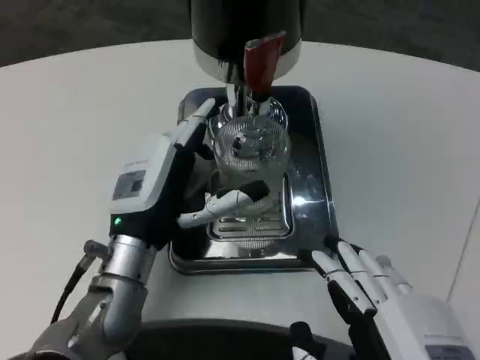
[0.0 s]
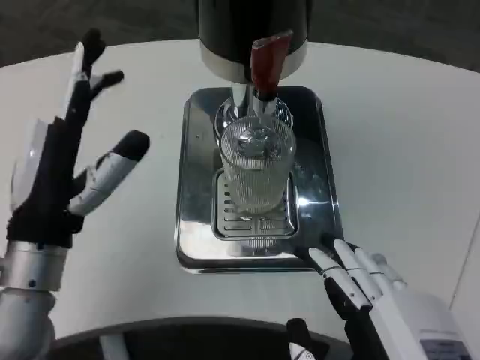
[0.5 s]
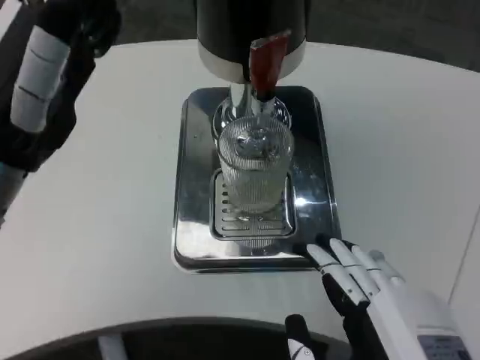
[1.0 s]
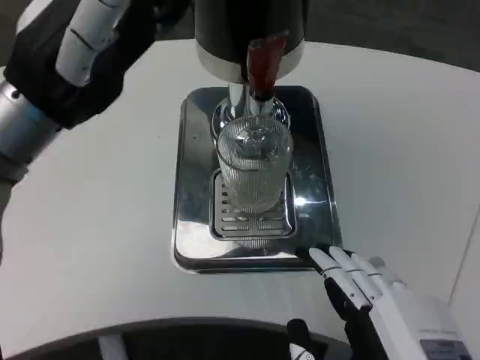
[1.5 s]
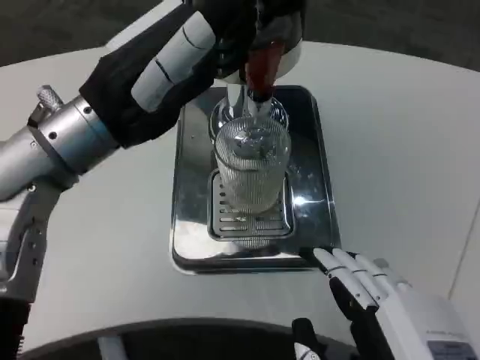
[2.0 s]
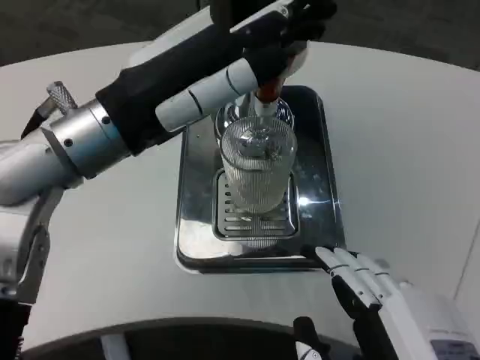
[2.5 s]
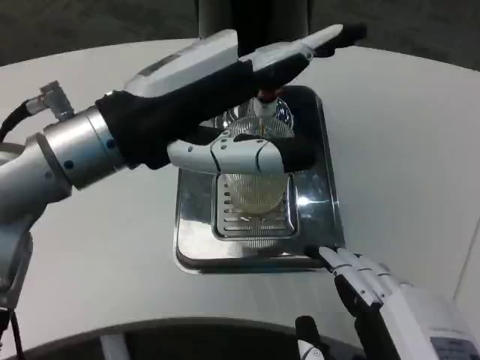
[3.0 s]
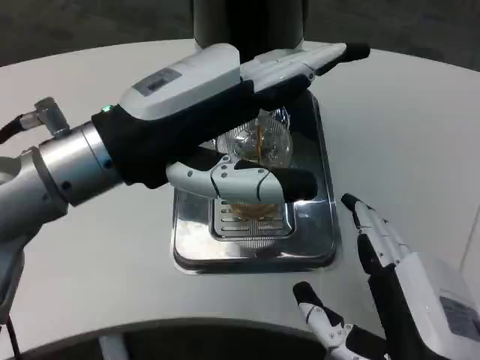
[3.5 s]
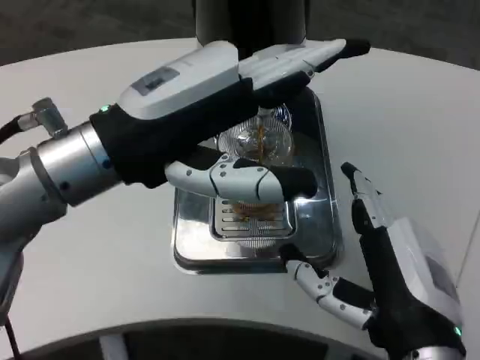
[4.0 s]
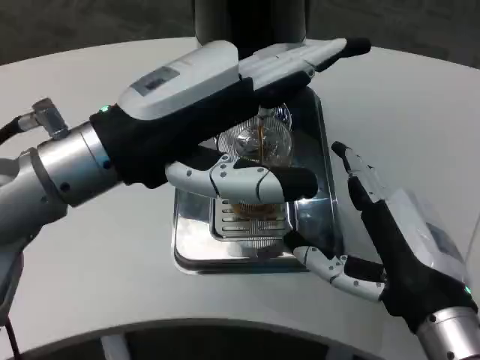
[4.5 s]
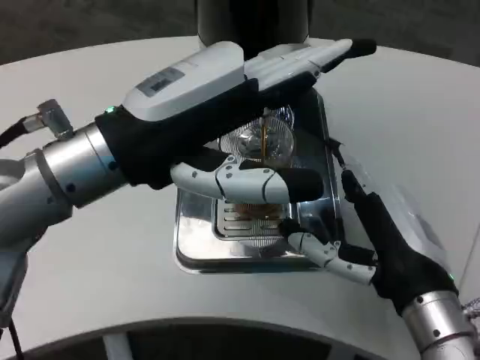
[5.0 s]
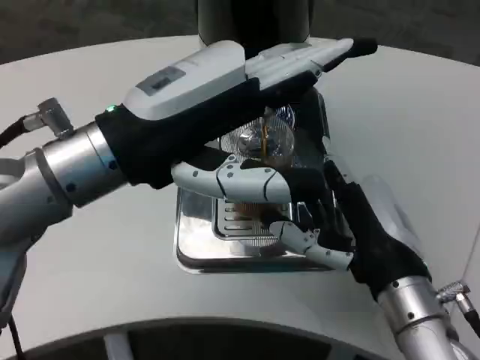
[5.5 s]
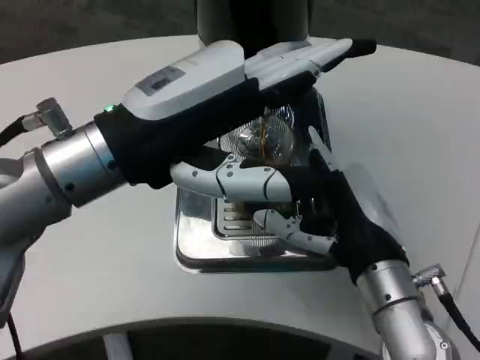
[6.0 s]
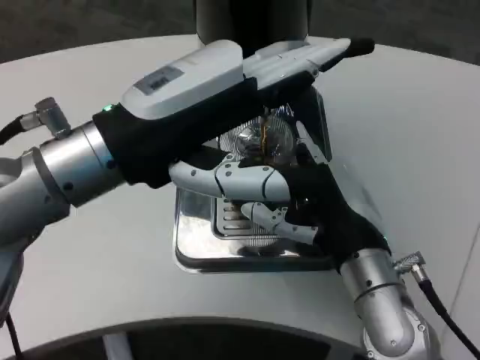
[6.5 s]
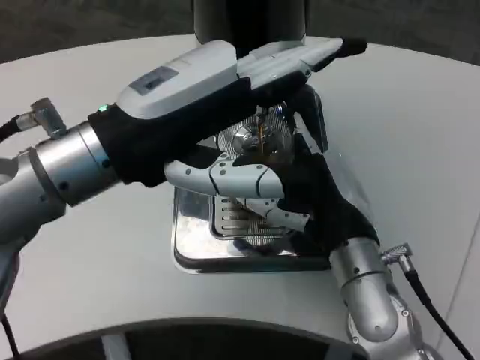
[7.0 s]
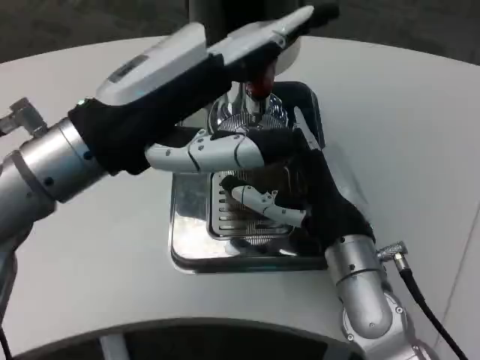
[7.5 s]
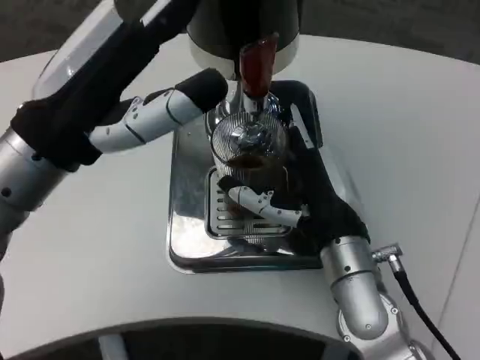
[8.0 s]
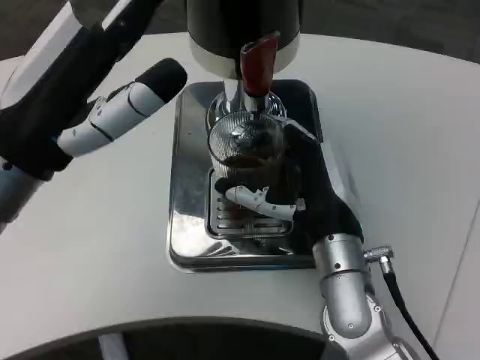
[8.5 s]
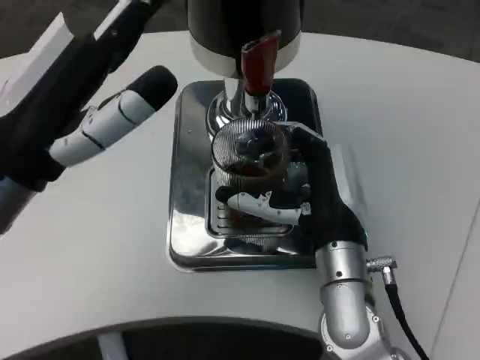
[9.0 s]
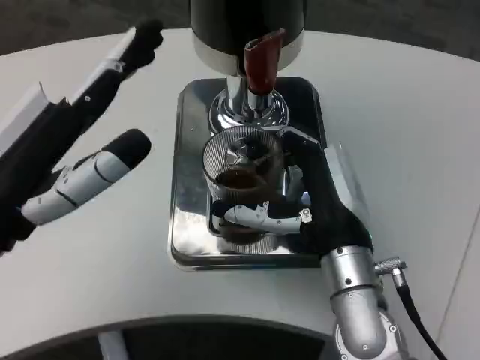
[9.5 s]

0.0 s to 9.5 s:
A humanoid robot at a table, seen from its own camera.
Task of the whole recording: Grasp the cup under the faucet to collect the drink, then remove the cup.
0.0 to 2.0 s: The left hand heads upward, covering roughly 15 cm.
2.0 to 4.0 s: The right hand goes roughly 10 cm forward.
4.0 to 5.5 s: The right hand shifts some 10 cm forward.
5.5 to 7.5 s: The right hand ends up approximately 5 cm from where it was.
7.5 to 9.5 s: The left hand moves to the left, downward and backward, approximately 10 cm.

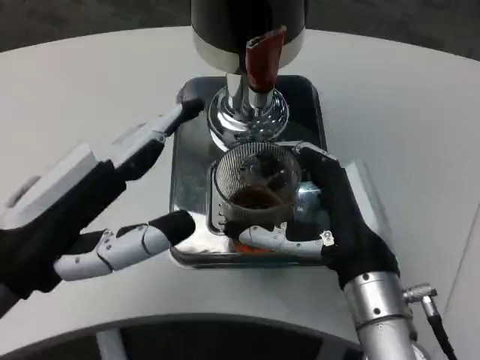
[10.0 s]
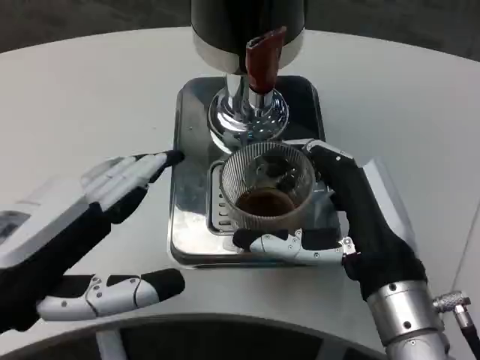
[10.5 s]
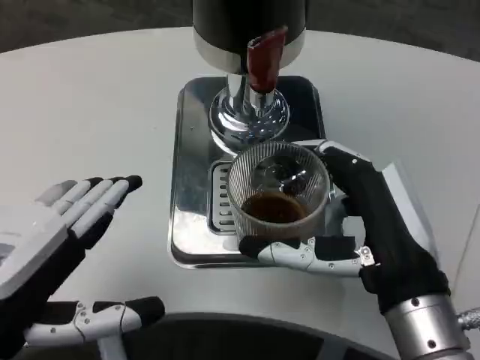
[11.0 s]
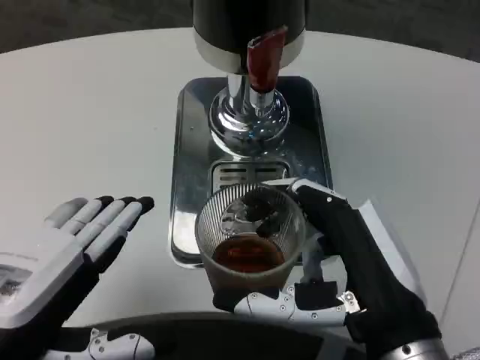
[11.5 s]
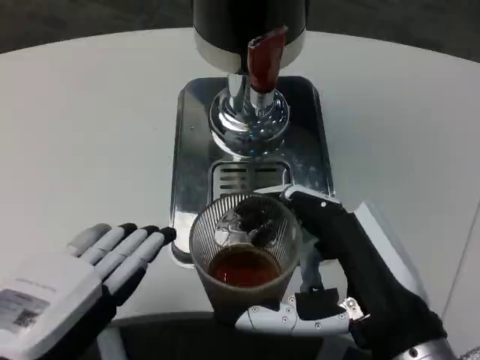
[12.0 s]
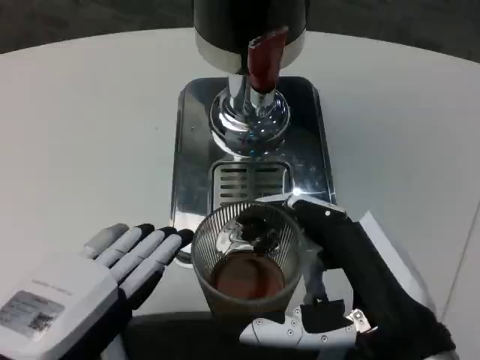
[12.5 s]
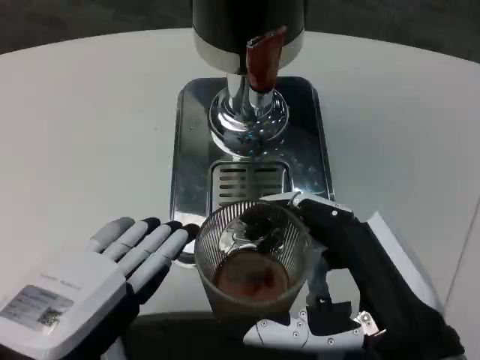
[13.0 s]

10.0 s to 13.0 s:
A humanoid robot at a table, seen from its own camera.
Task of the whole recording: Grasp the cup under the faucet to collect the drink, then remove the cup.
10.0 to 11.5 s: Both hands move backward, approximately 5 cm.

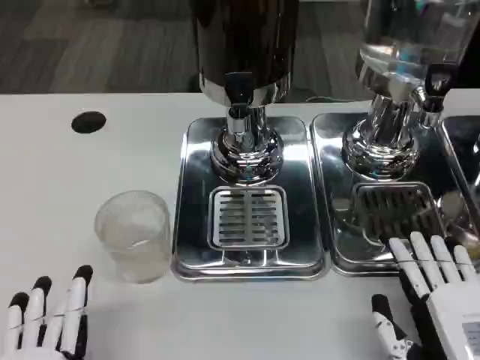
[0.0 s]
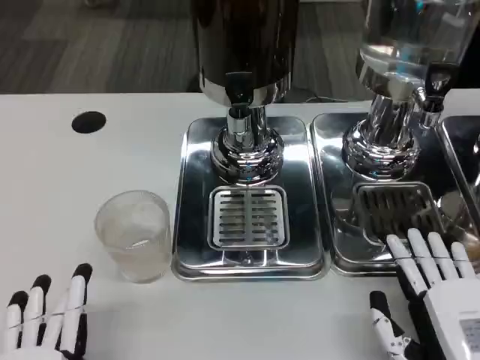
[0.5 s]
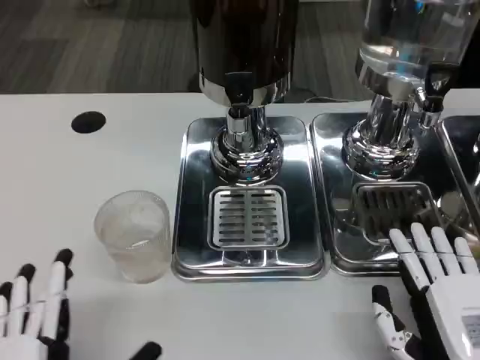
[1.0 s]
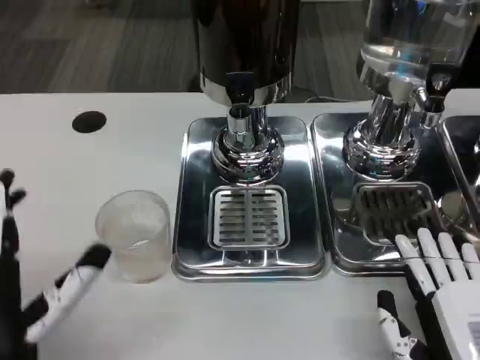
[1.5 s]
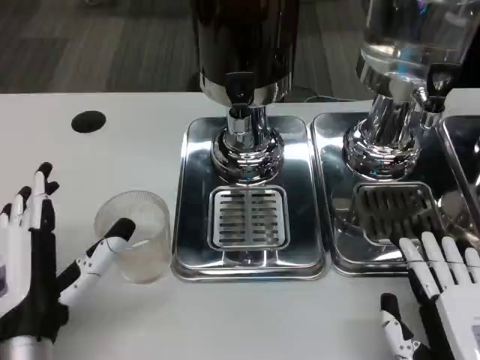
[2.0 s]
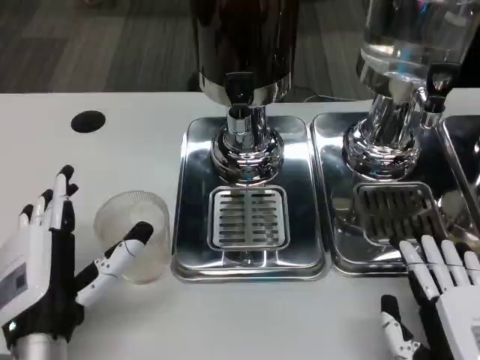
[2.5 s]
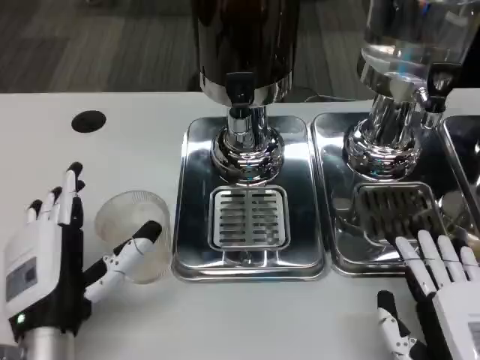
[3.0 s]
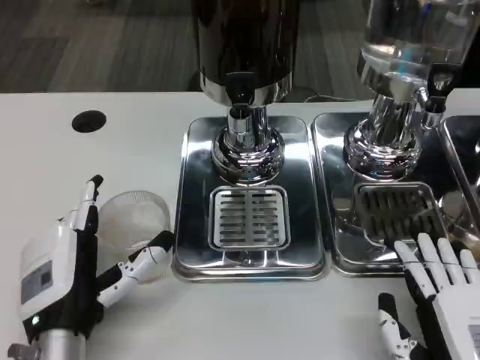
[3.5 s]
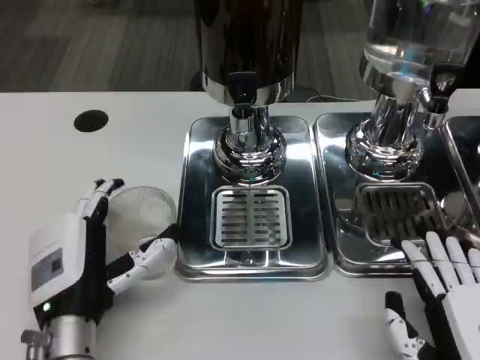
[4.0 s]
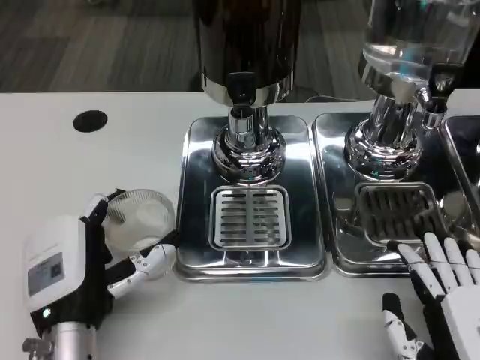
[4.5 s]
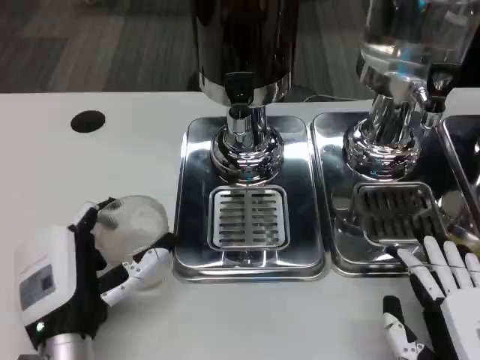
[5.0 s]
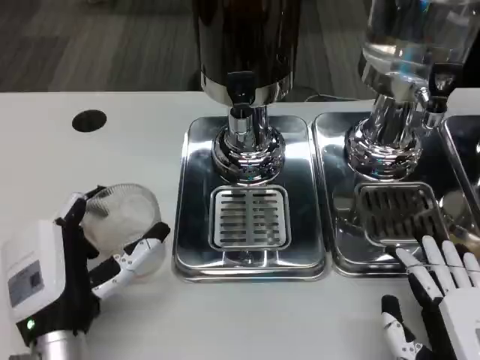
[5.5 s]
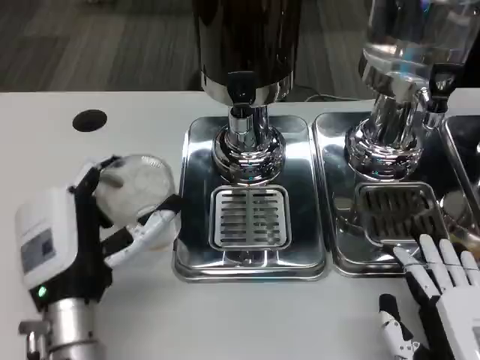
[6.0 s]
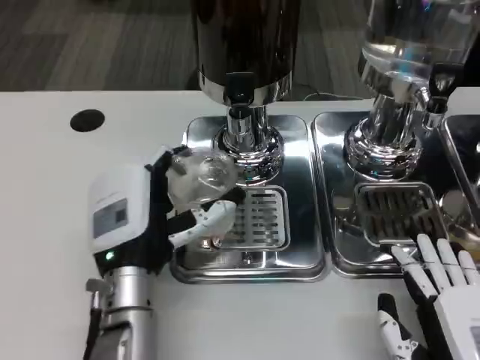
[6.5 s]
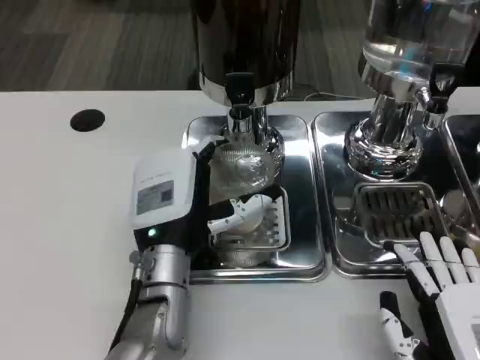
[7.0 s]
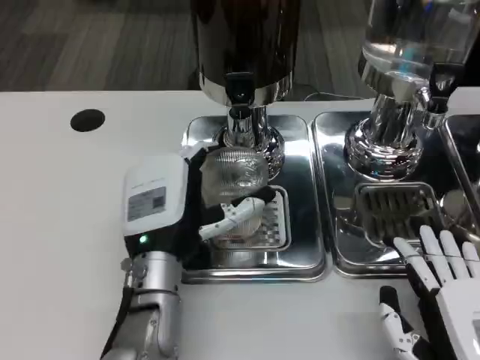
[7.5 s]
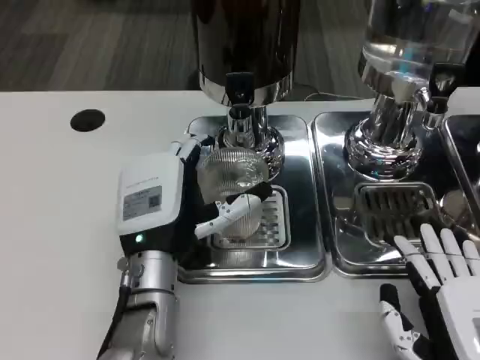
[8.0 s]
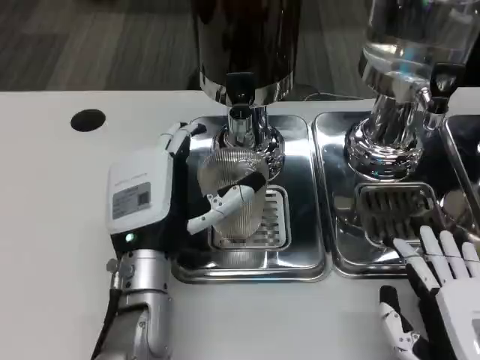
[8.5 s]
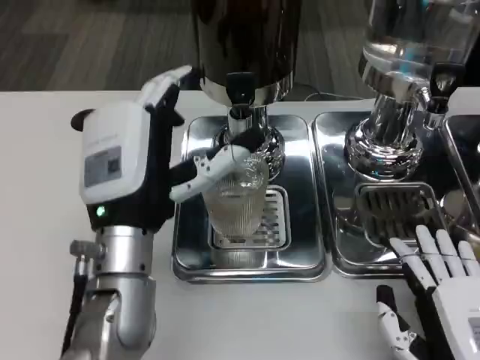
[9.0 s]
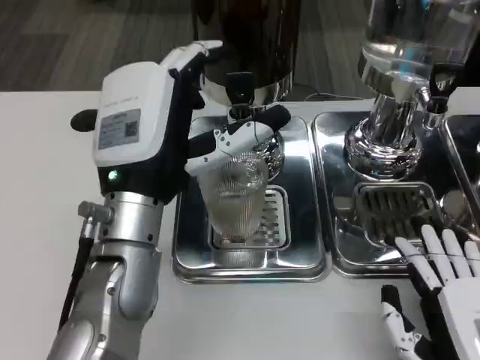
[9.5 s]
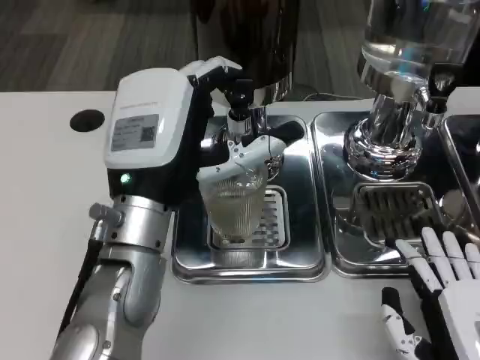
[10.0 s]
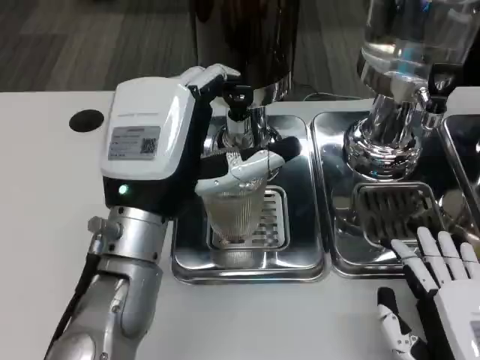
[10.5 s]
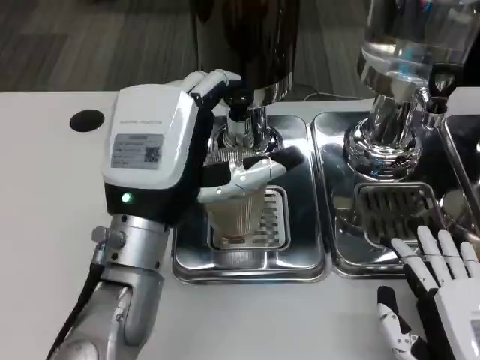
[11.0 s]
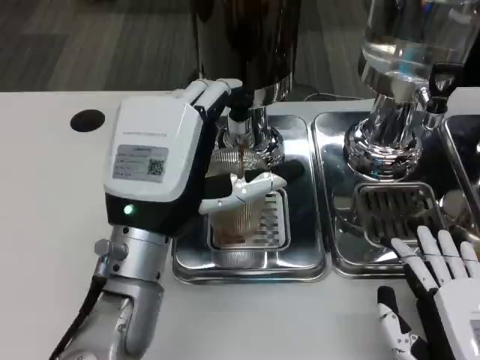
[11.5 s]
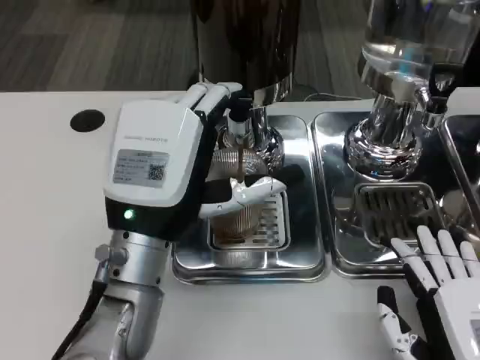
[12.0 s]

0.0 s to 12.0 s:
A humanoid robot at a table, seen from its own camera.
Task of the whole recording: Grasp the cup under the faucet to collect the drink, then remove the cup.
0.0 to 2.0 s: The left hand travels forward by roughly 15 cm.
4.0 to 6.0 s: The hands stay close to where they were, moving slightly.
6.0 to 8.0 s: The left hand shifts some 5 cm to the right.
8.0 to 10.0 s: The left hand heads upward, covering about 10 cm.

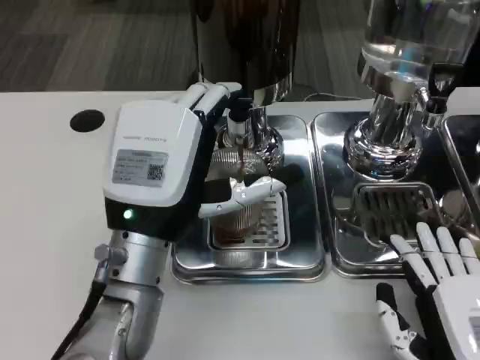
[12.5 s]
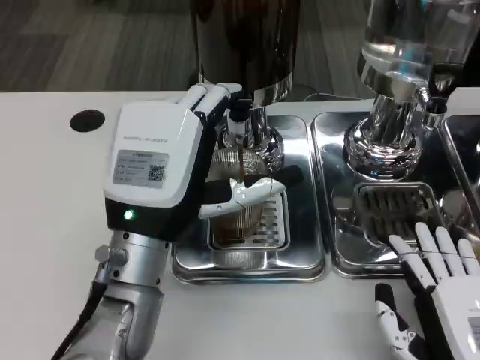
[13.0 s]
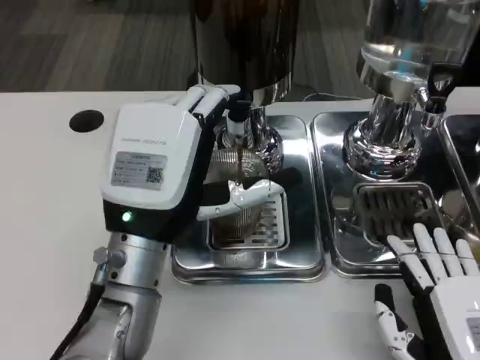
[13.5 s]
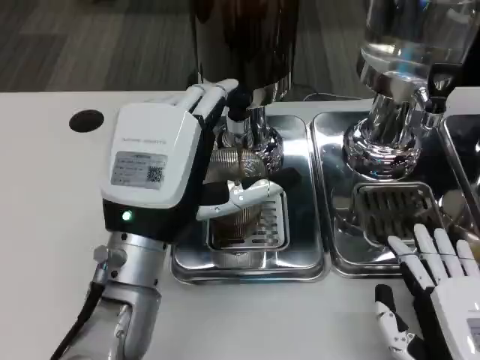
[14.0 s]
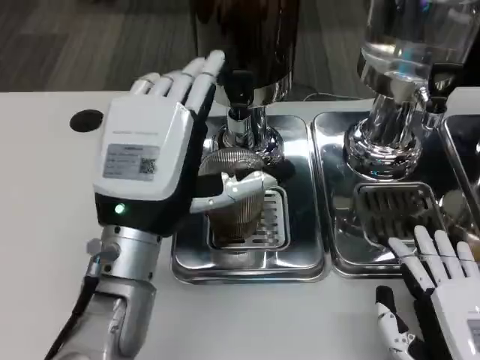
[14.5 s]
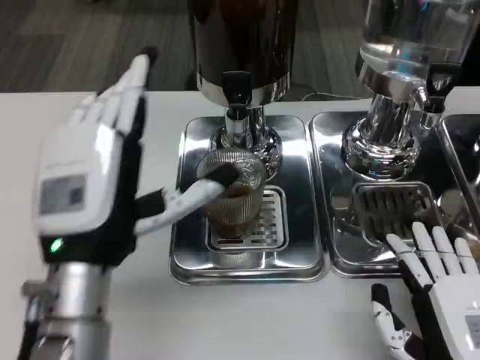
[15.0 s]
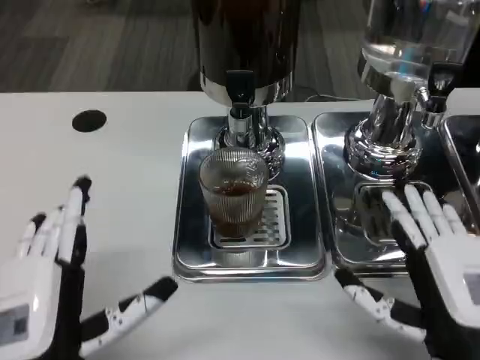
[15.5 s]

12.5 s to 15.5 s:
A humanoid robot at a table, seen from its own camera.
Task of the whole recording: Grasp the cup under the faucet to collect the drink, then remove the cup.
12.5 to 14.0 s: Both hands stay put.
14.0 to 15.5 s: The right hand changes place by roughly 5 cm, while the left hand is displaced backward, to the left and downward by roughly 15 cm.
